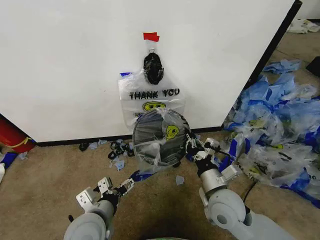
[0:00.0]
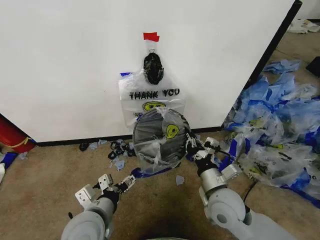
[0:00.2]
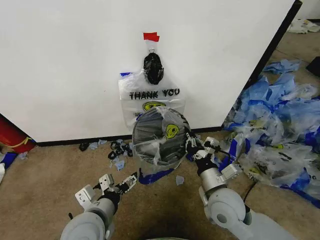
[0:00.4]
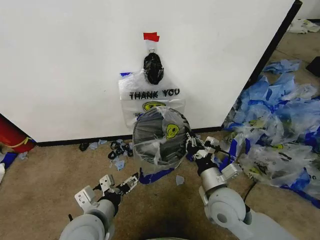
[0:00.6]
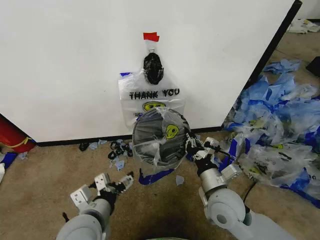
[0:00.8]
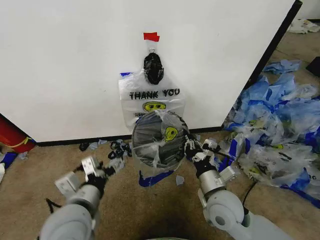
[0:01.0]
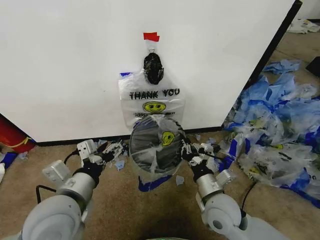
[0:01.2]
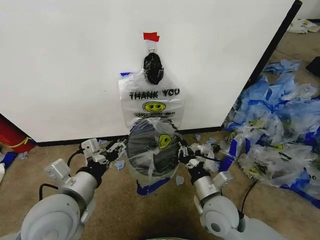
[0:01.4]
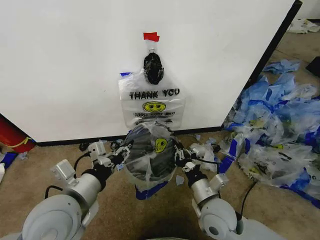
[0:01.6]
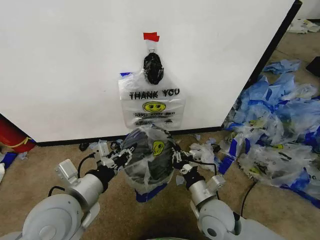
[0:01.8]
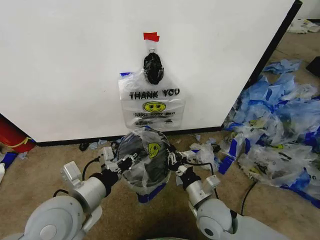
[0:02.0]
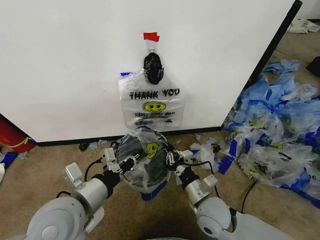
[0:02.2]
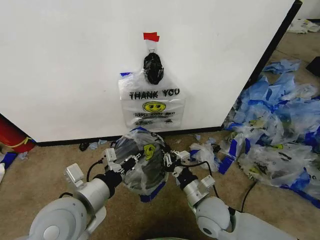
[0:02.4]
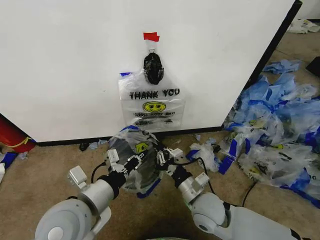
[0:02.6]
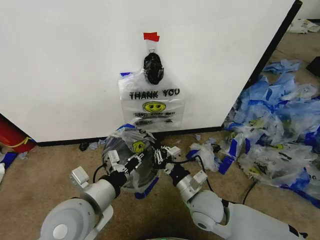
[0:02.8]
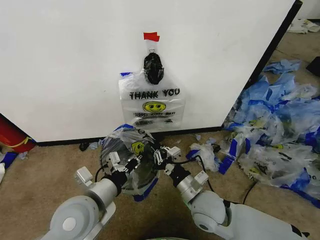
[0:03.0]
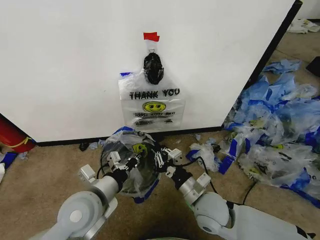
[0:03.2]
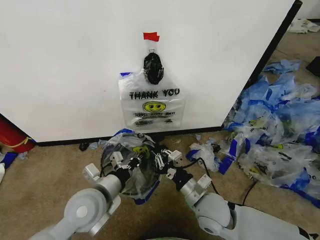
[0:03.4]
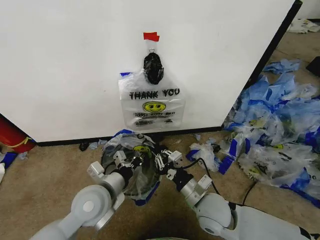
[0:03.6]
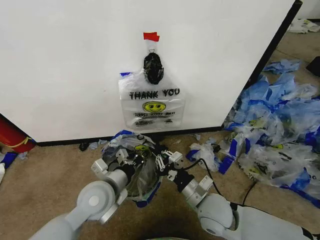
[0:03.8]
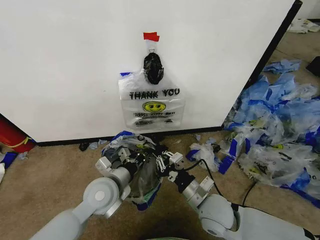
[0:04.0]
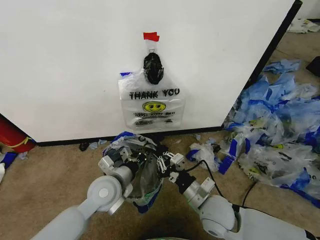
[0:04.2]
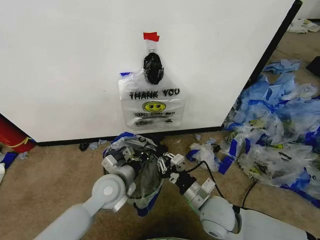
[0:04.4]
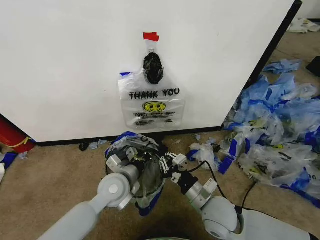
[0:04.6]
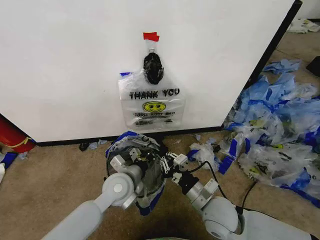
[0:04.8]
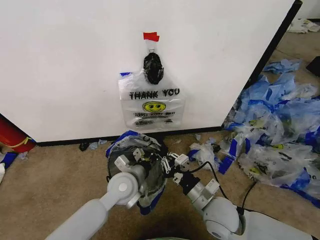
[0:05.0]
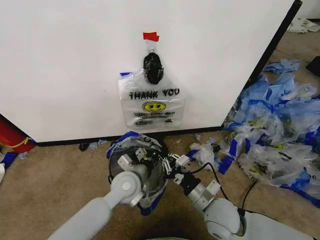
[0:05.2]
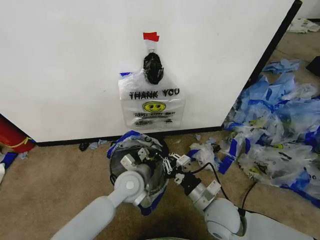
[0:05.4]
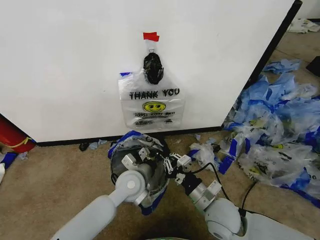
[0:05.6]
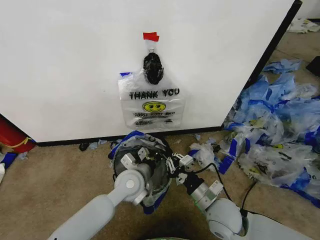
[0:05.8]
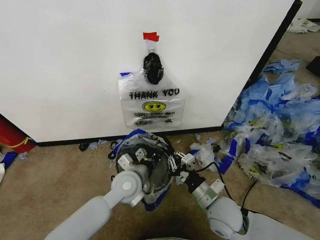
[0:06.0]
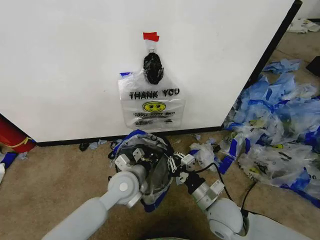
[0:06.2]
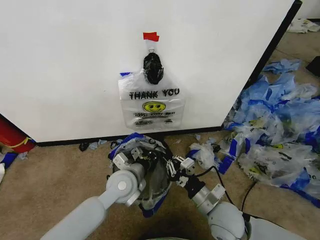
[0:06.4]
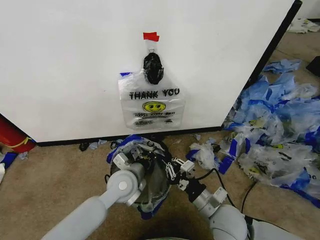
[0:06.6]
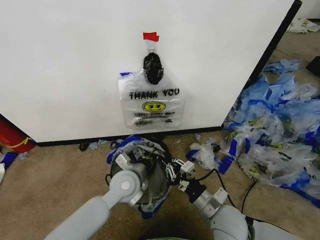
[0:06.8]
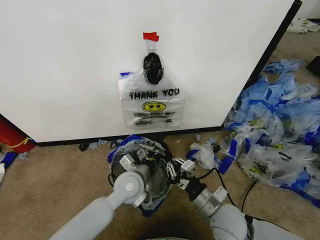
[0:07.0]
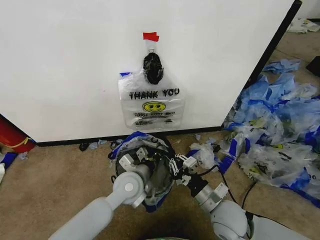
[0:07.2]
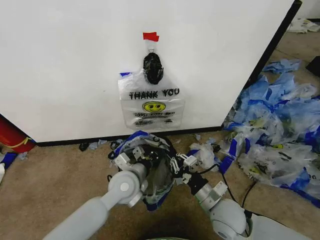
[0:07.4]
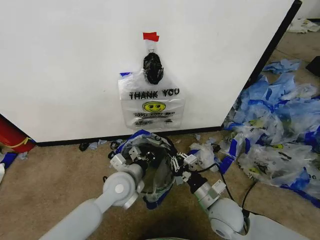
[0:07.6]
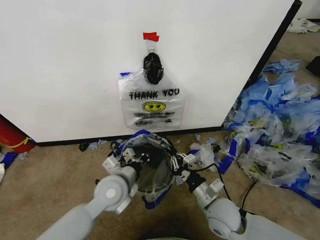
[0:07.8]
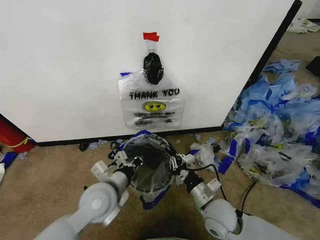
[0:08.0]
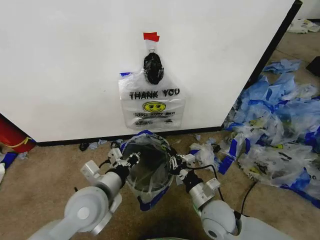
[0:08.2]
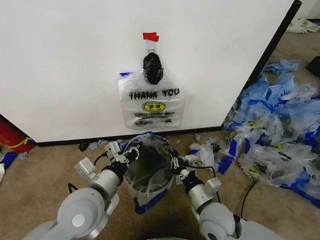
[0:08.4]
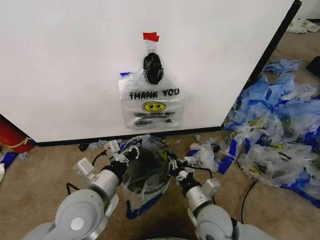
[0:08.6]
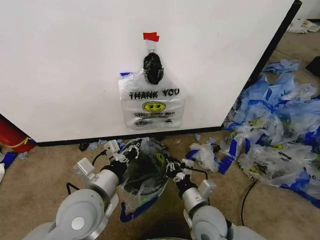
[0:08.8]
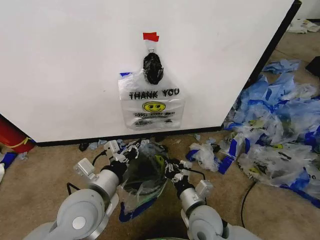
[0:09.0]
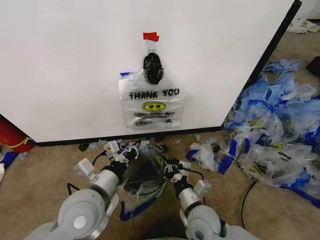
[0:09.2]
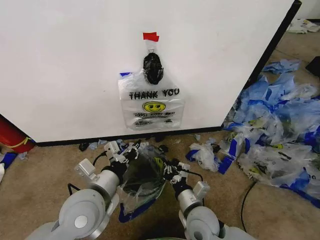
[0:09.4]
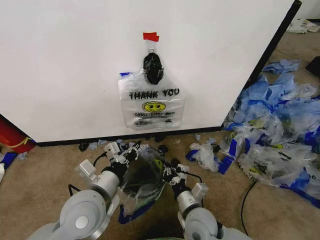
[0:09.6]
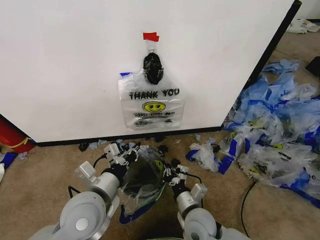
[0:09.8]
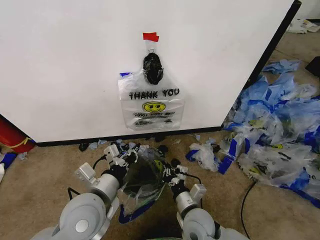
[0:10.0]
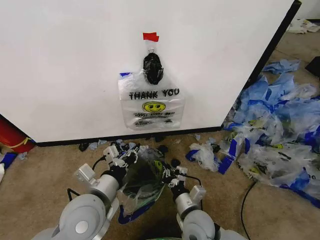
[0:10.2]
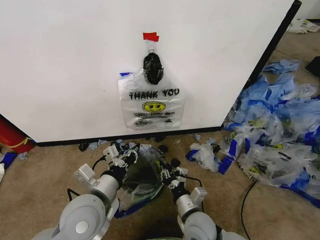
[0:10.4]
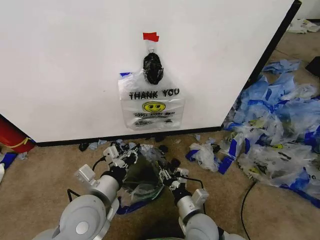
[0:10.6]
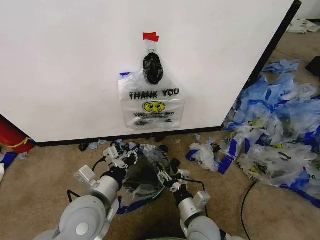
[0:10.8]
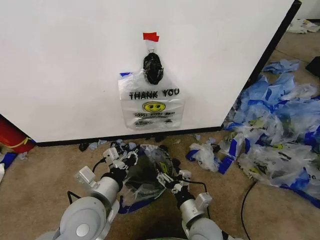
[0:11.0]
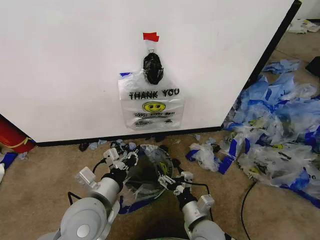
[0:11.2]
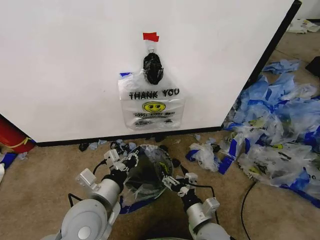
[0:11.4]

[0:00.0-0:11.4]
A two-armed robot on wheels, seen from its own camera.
Task of the whole recording: Pick up the garbage bag from the wall and place it over the trash bin.
0:00.0 to 0:01.4: The left gripper shifts about 10 cm upward, and closes.
0:01.4 to 0:02.8: The left gripper closes up.
0:02.8 to 0:04.2: The left gripper is displaced forward and downward by roughly 10 cm.
0:04.2 to 0:05.6: The left gripper heads to the right, covering some 5 cm.
0:05.6 to 0:07.2: The grippers make only small movements.
0:07.2 to 0:08.6: The left gripper moves backward, upward and to the left, approximately 15 cm.
0:08.6 to 0:10.0: The right gripper goes about 5 cm downward.
0:10.0 to 0:11.4: The right gripper changes place by about 5 cm, and opens up.

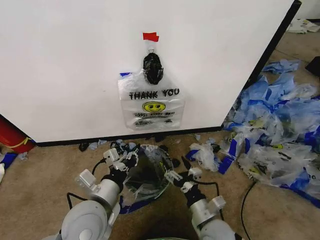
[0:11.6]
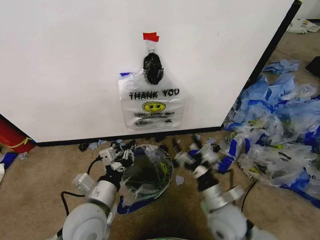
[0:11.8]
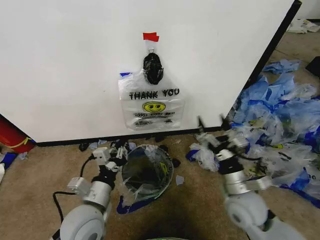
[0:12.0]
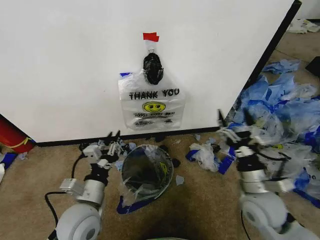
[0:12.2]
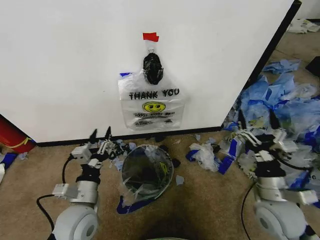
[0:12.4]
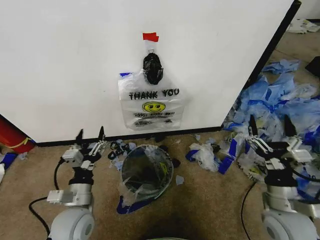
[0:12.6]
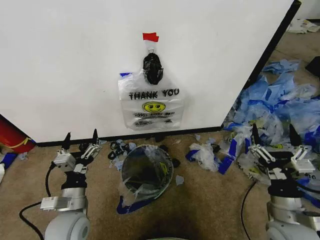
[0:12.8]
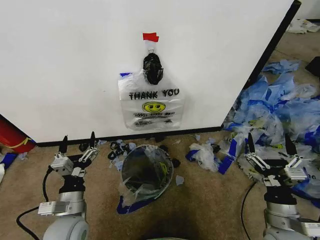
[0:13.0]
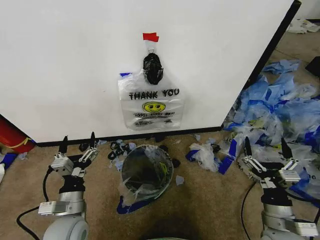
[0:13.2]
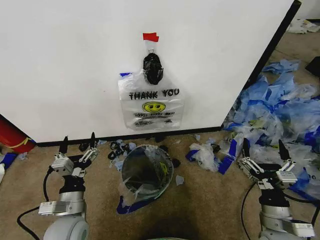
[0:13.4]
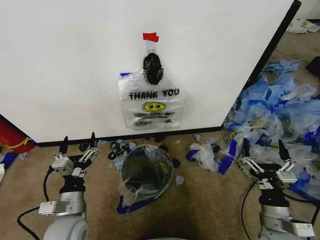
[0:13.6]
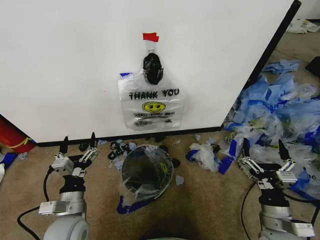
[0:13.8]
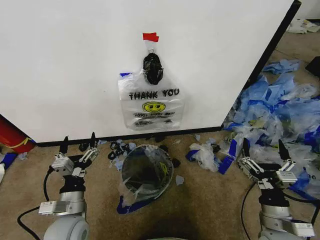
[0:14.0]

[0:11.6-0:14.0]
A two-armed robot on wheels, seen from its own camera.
Task of the whole recording: Pick up the garbage bag from the wall and place it over the trash bin.
0:11.6 to 0:12.8: The left gripper moves downward and to the left, roughly 10 cm, and opens its fingers, while the right gripper heads to the right and upward, covering roughly 15 cm.
0:12.8 to 0:14.0: The grippers make only small movements.

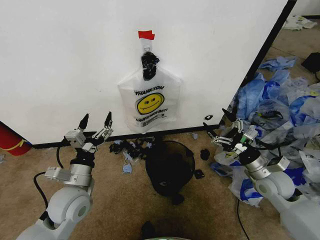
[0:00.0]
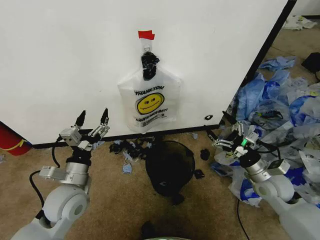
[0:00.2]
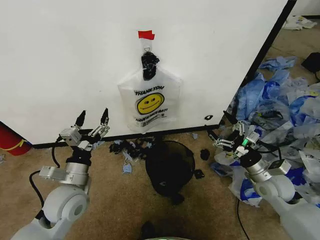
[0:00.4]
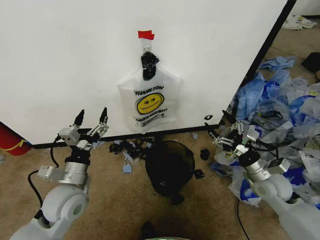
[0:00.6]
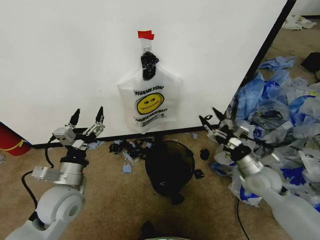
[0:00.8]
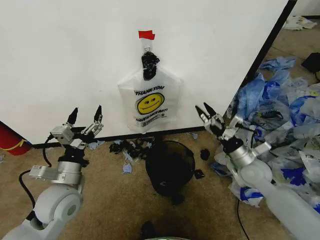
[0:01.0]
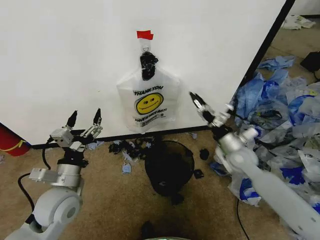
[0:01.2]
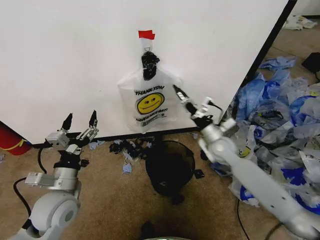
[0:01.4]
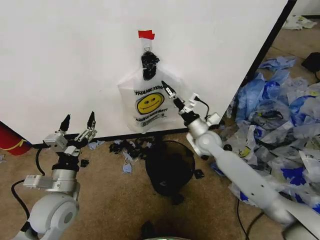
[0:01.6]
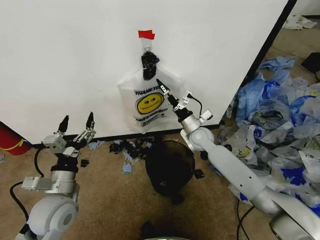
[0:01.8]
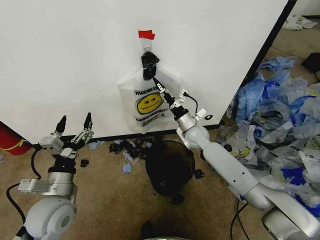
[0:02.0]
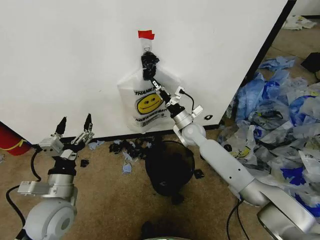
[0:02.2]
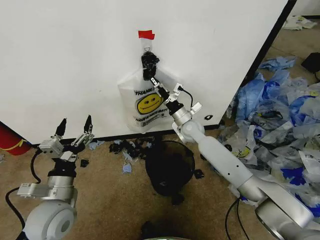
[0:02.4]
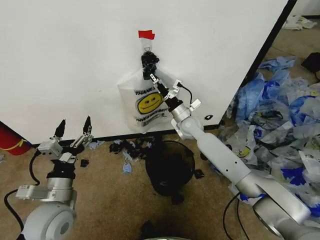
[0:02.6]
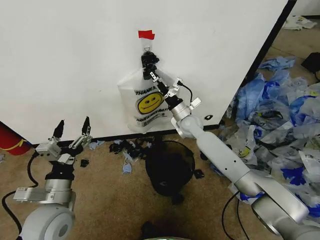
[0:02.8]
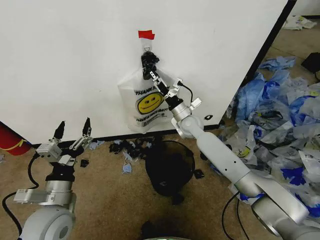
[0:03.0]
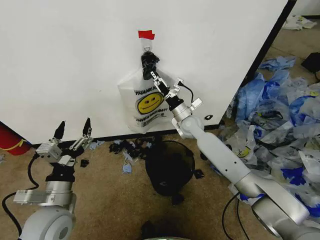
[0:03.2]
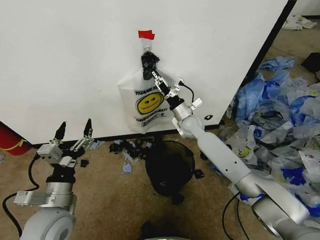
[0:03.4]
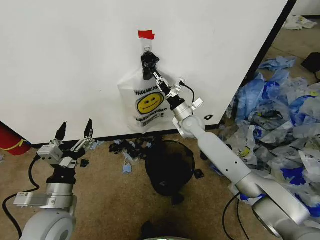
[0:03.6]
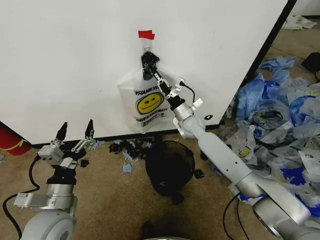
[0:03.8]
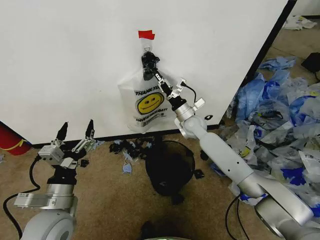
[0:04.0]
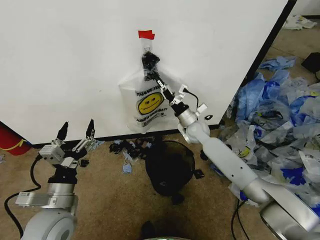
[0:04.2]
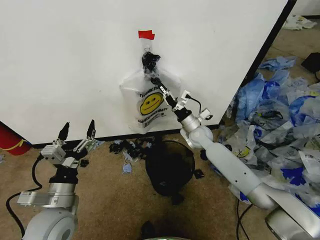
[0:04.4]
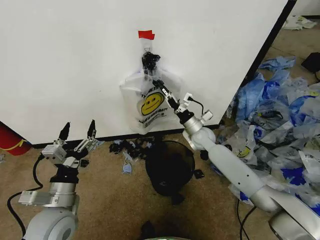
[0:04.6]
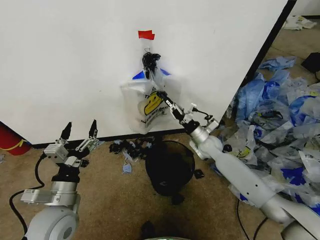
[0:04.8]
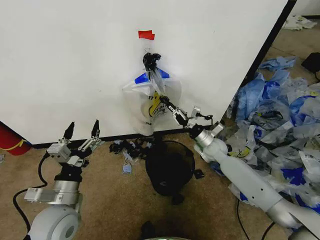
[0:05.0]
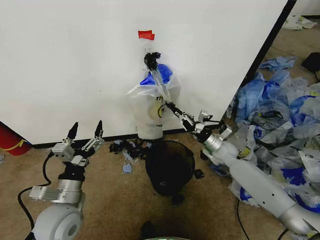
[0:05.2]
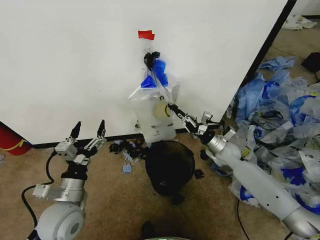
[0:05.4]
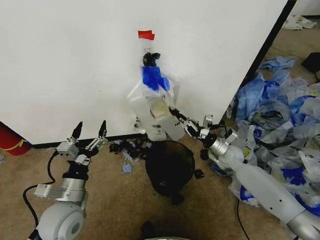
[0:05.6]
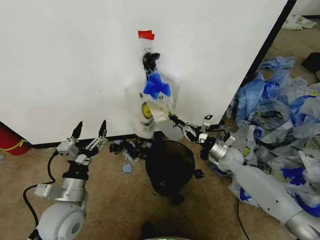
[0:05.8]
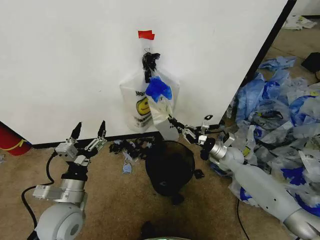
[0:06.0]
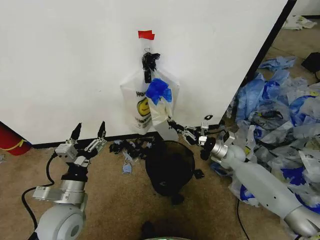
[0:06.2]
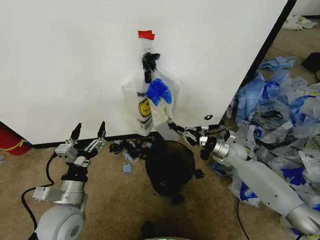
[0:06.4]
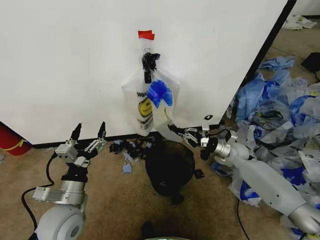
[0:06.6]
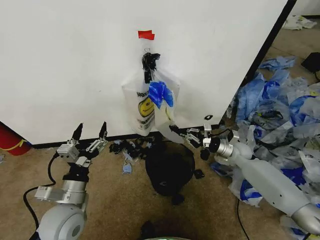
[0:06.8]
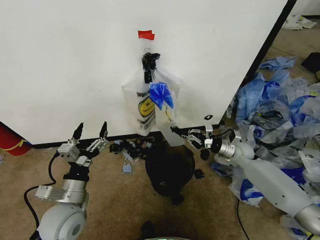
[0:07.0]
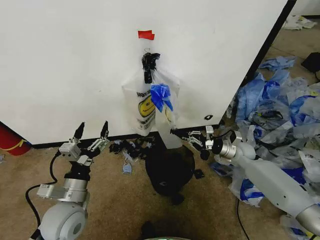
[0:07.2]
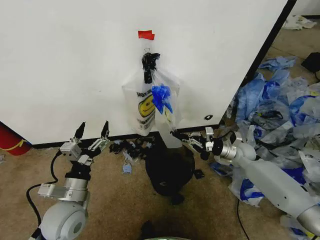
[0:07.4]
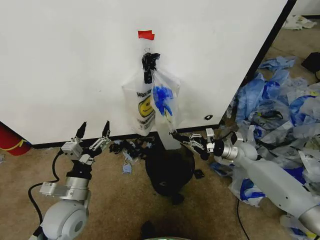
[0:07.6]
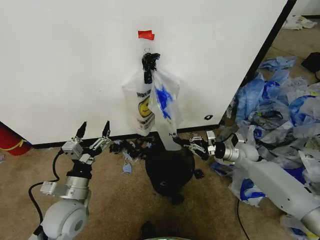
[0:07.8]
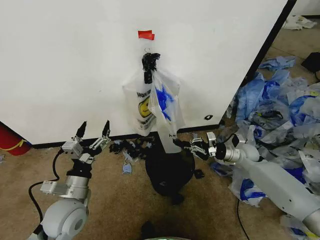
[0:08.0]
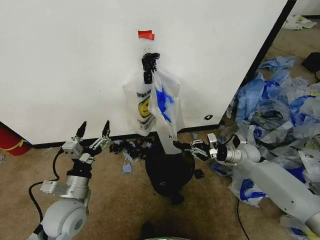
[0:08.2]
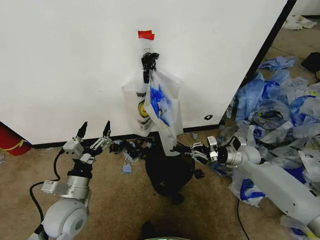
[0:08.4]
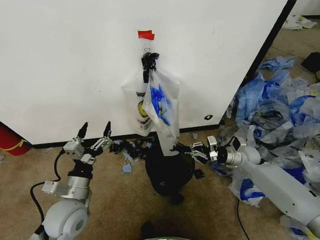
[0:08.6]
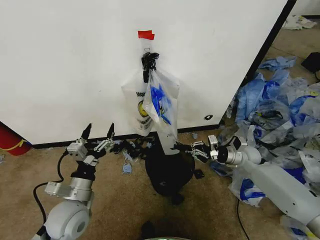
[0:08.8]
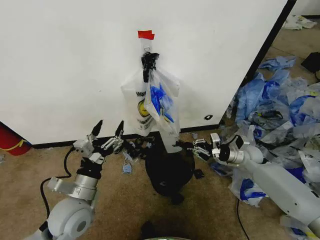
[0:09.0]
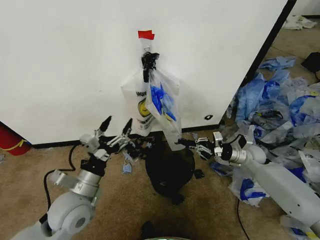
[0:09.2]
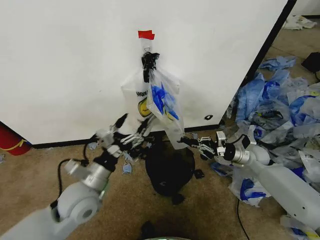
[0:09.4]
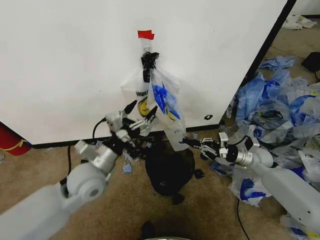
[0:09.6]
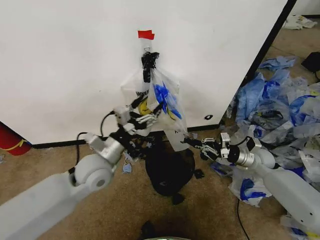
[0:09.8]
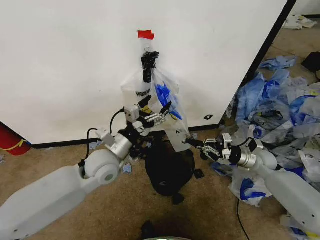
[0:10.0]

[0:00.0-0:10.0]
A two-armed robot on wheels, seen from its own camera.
Task of the whole recording: Pick up the garbage bag from the wall and place it over the trash bin.
0:01.4 to 0:02.8: The right gripper shifts some 15 cm forward and to the left.
0:02.8 to 0:04.2: The right gripper closes.
0:04.2 to 0:05.8: The right gripper moves to the right, downward and backward, some 20 cm.
0:05.8 to 0:07.2: The right gripper moves about 5 cm.
0:07.2 to 0:08.6: The grippers make only small movements.
0:08.6 to 0:10.0: The left gripper is displaced forward, to the right and upward by about 15 cm; the right gripper ends up roughly 5 cm from where it was.
